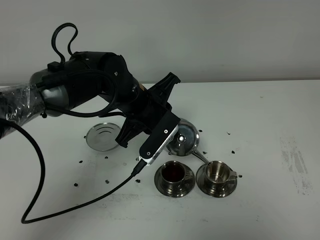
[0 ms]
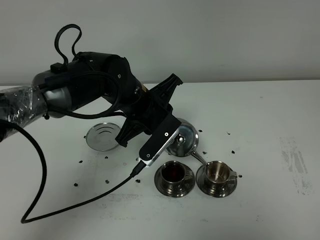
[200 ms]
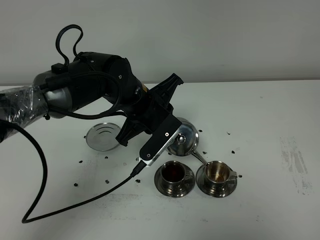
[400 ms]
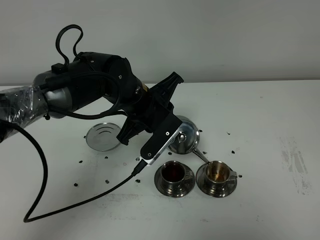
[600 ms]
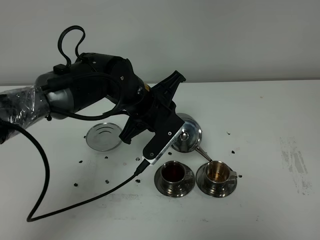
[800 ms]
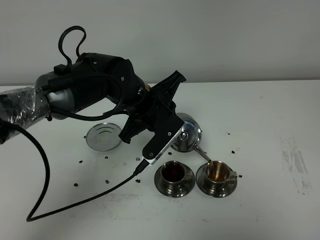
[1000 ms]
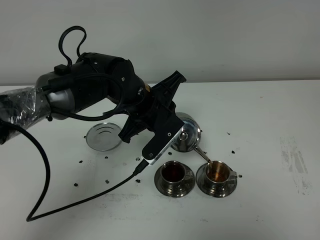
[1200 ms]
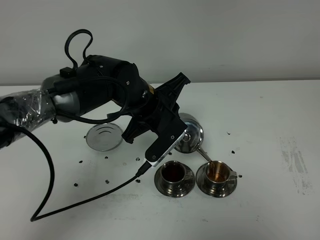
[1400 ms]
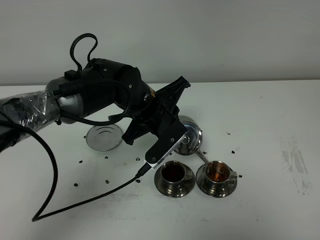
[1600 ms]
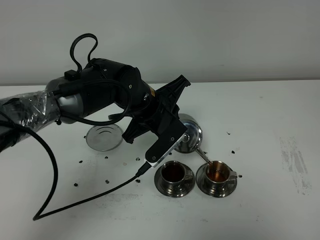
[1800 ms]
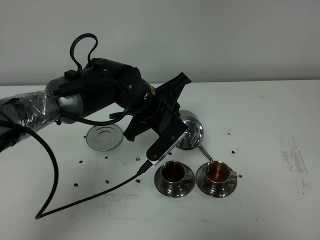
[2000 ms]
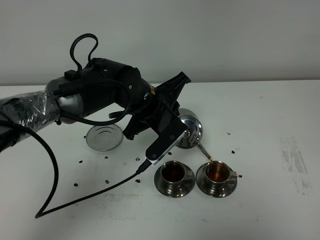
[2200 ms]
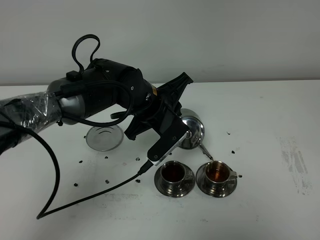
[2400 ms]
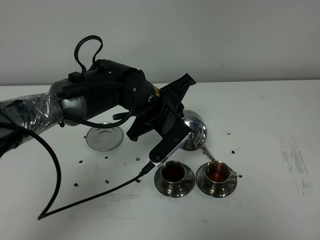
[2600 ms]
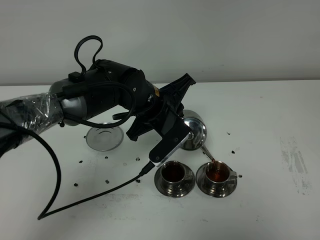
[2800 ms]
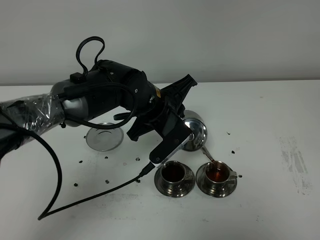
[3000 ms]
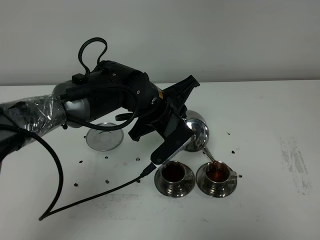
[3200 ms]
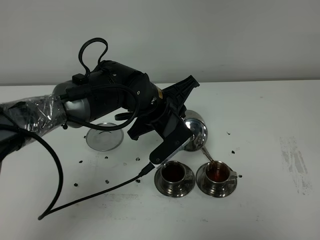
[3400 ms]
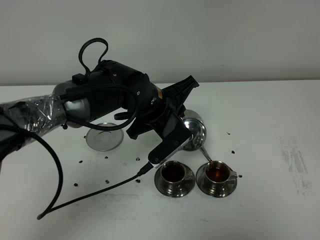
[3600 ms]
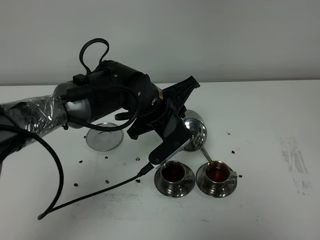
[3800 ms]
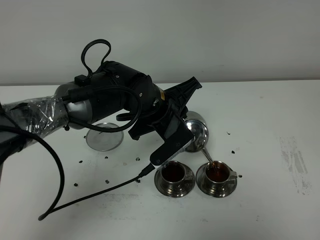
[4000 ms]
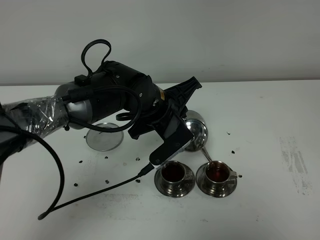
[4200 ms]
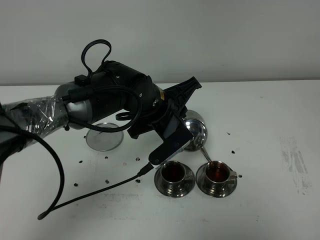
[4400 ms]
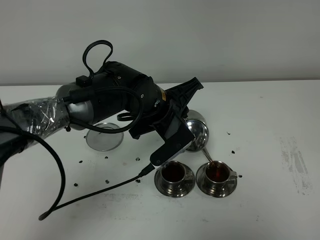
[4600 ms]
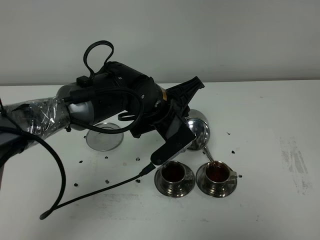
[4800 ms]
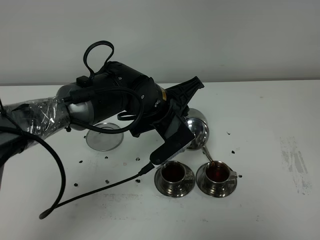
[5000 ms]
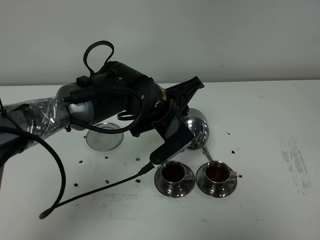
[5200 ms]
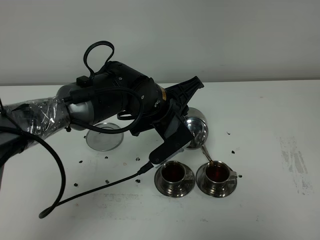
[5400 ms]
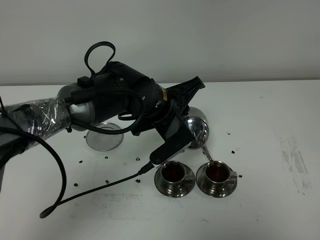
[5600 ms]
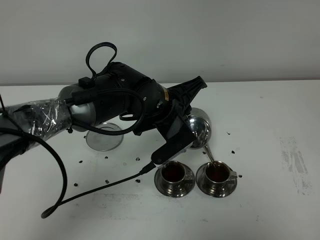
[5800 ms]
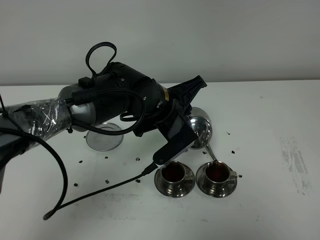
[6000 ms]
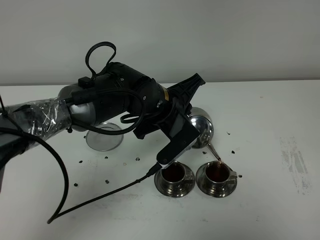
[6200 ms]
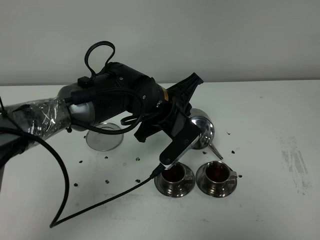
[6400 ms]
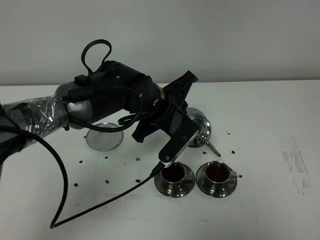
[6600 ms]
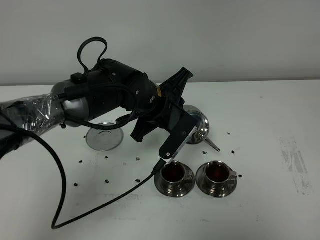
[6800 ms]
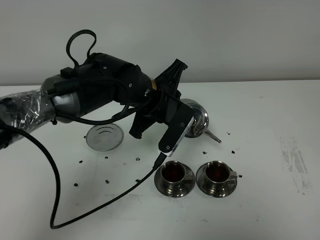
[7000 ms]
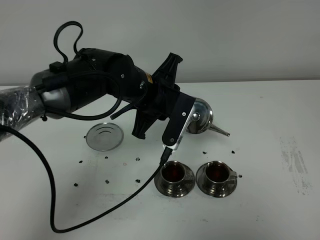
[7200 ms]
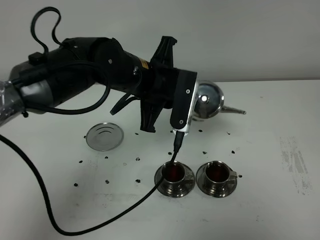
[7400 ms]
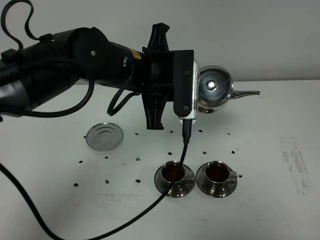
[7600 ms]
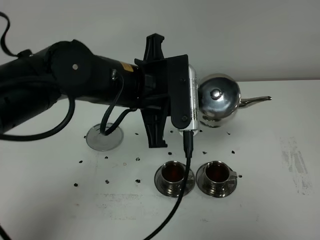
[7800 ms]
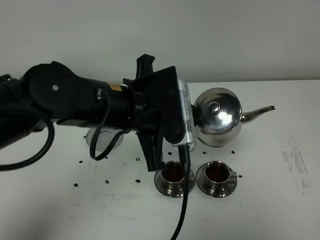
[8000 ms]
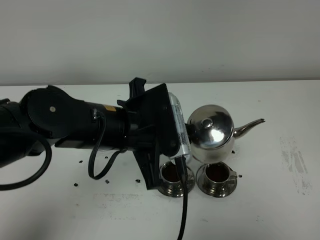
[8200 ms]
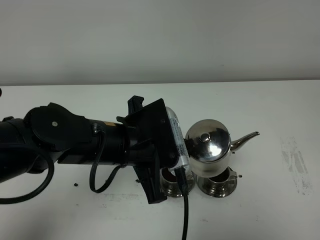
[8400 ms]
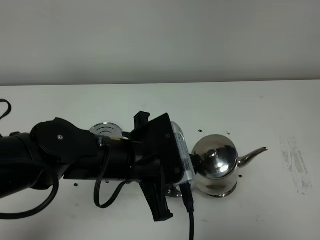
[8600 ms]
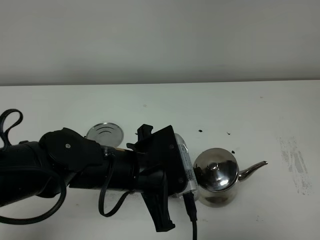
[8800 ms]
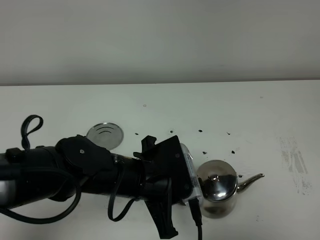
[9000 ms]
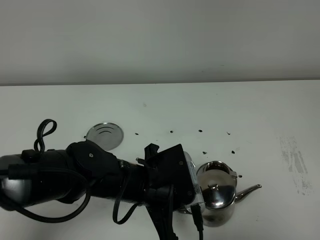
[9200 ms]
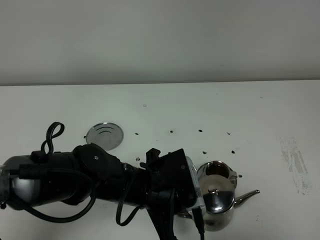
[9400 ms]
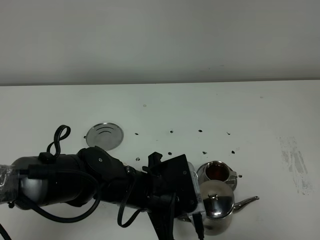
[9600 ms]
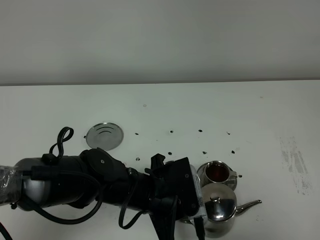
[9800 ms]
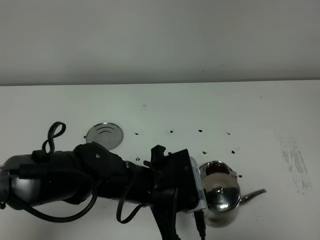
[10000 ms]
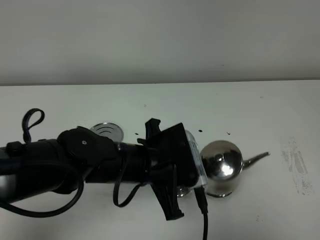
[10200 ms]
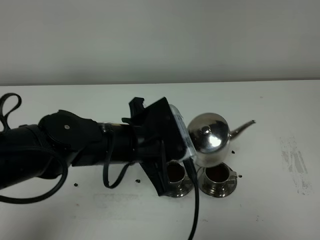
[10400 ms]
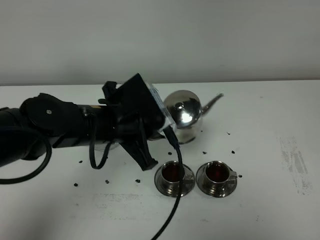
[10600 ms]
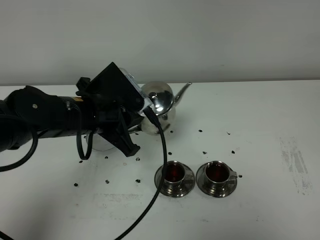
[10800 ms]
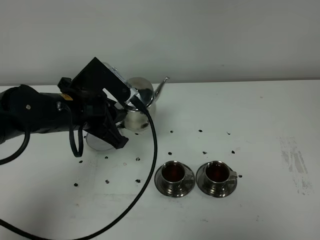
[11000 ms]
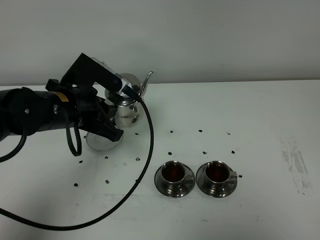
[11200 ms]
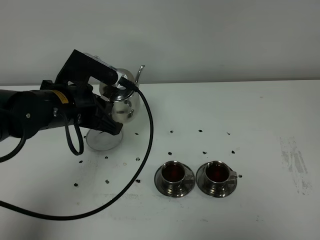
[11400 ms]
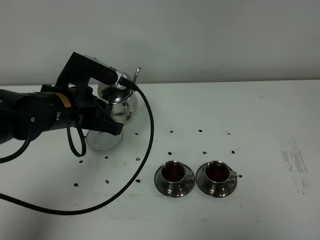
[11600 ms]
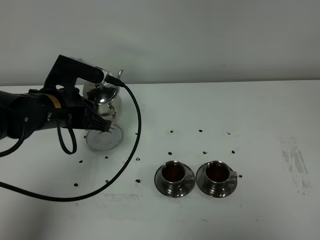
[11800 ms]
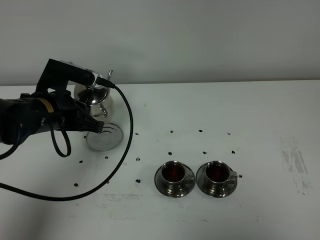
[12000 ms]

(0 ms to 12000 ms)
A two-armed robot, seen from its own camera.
Task of the whole recording: grasp the stainless steel teapot and pour the tea into the two stainless steel teacups one by one, put the stainless steel teapot back in its original place.
Step, 0 ms - 6600 ms: Pour tea into the teacup with the left gripper.
0 ms - 4400 ms: The grippers move only a little.
4400 ms - 6000 ms: The two grippers keep their place.
6000 ms - 7600 ms: The left gripper shifts about 10 cm upward.
7600 ms - 9000 ms: The left gripper moves downward and backward, some 15 cm.
9000 ms - 10400 ms: The left gripper shifts by roughly 5 cm.
10400 ms - 12000 ms: The left gripper heads to the left and forward, covering about 15 cm.

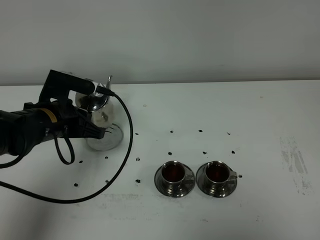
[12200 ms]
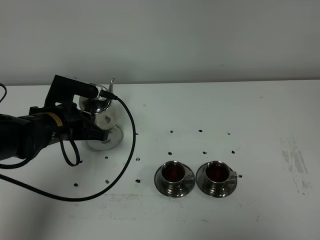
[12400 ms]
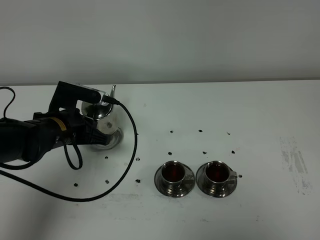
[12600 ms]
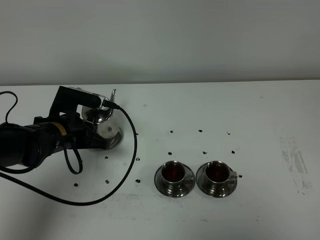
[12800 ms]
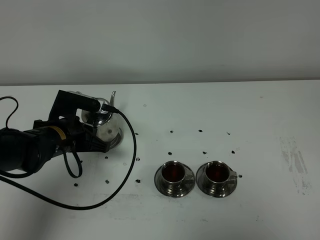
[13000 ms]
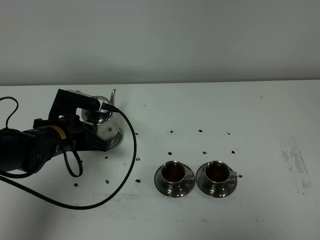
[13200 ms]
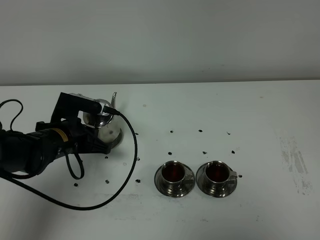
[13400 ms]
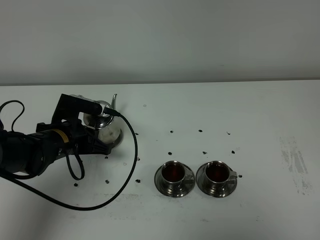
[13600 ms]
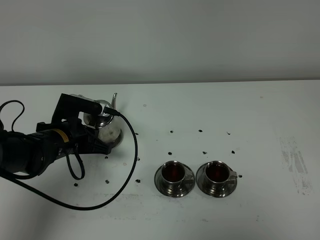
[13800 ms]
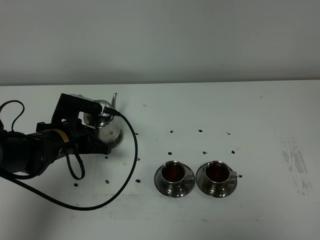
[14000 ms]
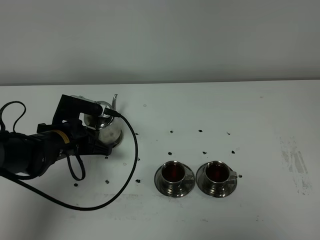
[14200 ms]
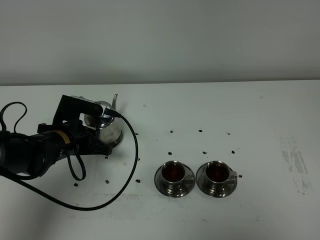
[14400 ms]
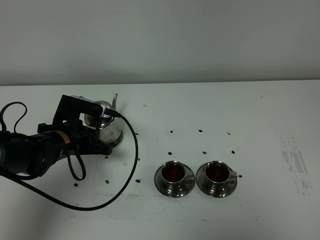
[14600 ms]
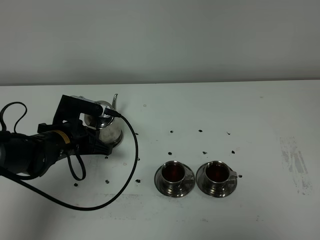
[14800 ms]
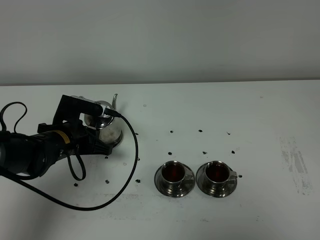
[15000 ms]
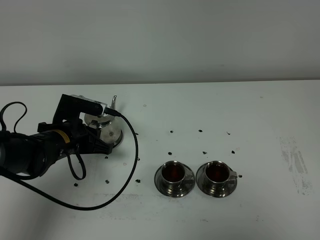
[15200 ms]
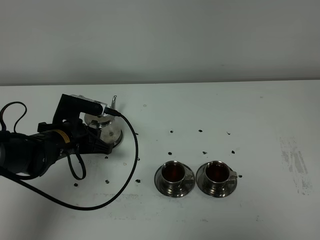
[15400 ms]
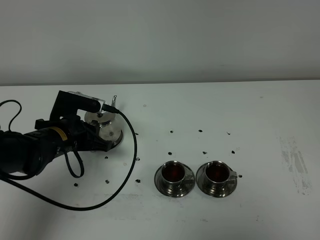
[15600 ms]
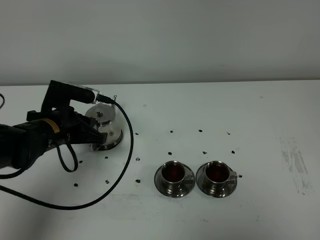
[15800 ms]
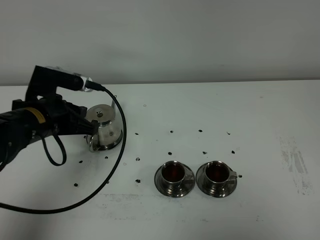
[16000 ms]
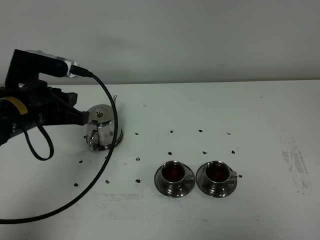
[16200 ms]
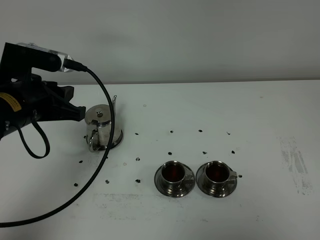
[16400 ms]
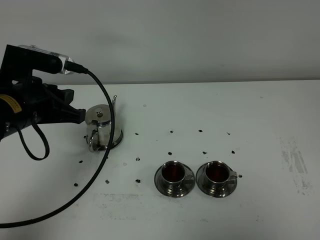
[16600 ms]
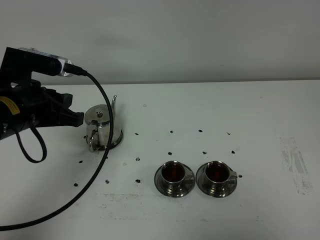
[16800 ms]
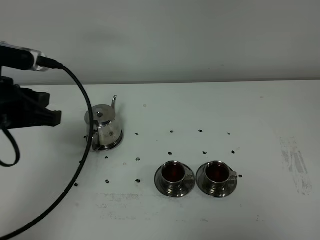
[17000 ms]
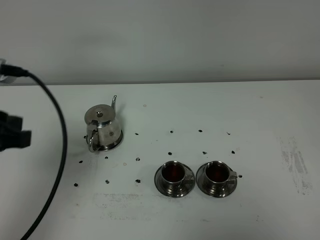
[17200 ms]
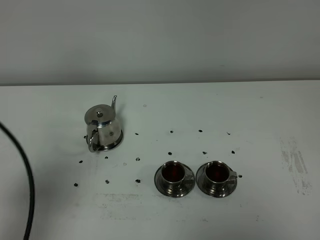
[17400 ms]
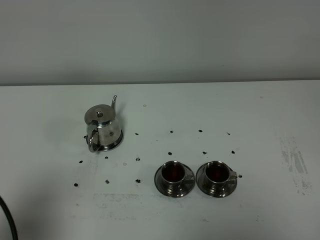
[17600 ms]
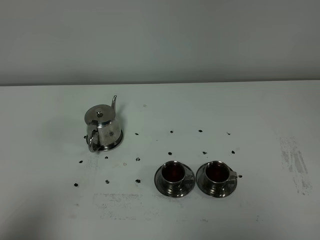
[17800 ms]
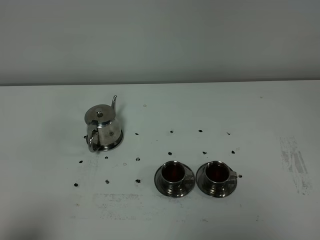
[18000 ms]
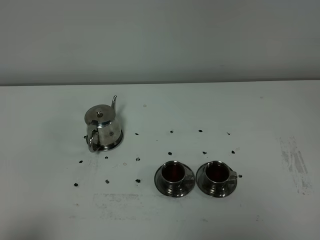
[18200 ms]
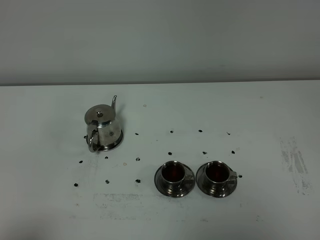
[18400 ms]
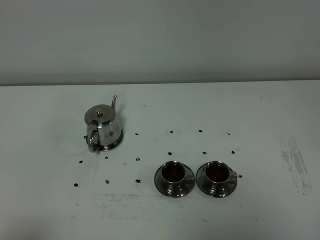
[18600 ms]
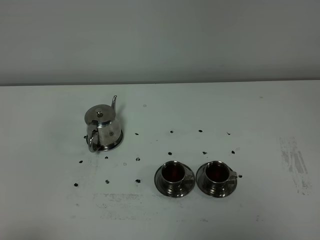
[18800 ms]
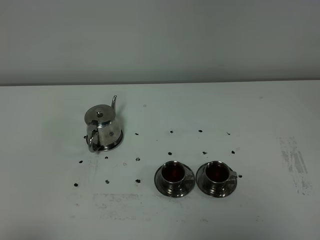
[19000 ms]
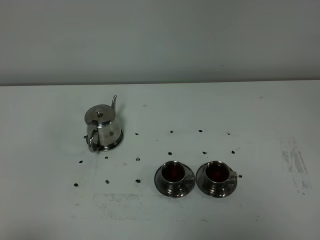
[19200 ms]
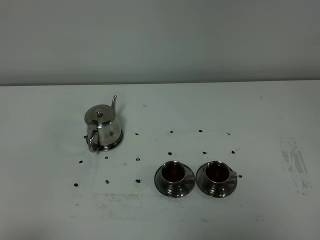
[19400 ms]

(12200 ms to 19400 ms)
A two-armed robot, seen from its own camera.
Task of the whole recording: grasp the stainless steel teapot and pour the tea into the two stainless steel teacups one by one, put the stainless steel teapot back in its original place.
12200 ms - 13600 ms: The left gripper goes approximately 5 cm downward.
13600 ms - 15000 ms: Neither gripper changes place.
15000 ms - 16600 ms: The left gripper moves upward, approximately 15 cm.
16600 ms - 18000 ms: The left gripper goes roughly 25 cm backward.

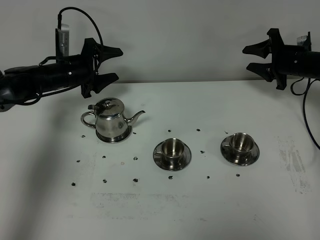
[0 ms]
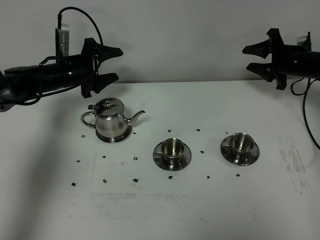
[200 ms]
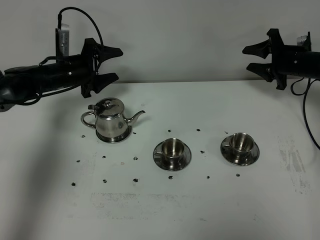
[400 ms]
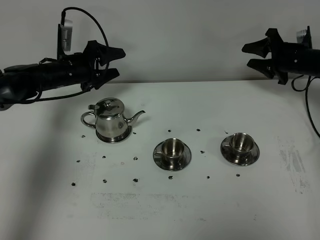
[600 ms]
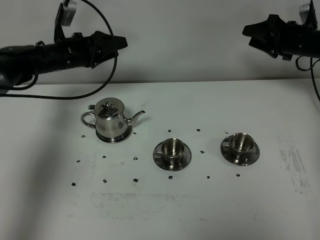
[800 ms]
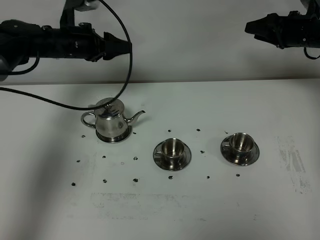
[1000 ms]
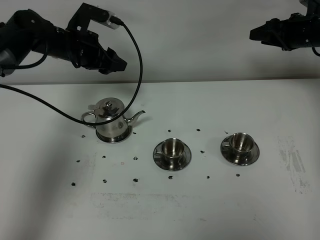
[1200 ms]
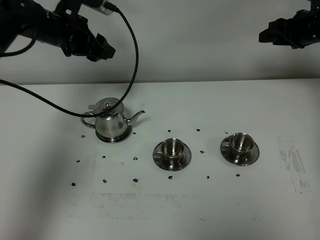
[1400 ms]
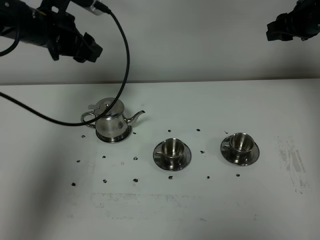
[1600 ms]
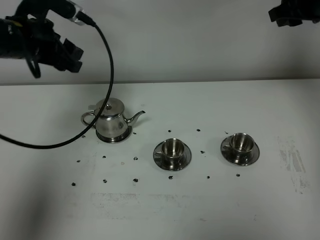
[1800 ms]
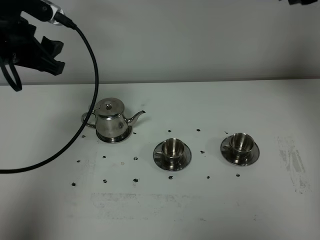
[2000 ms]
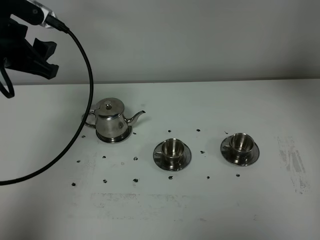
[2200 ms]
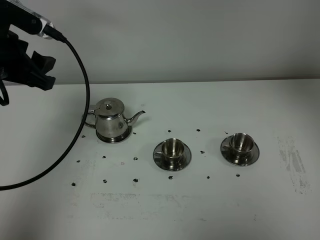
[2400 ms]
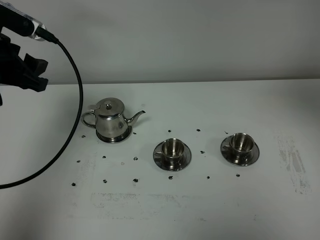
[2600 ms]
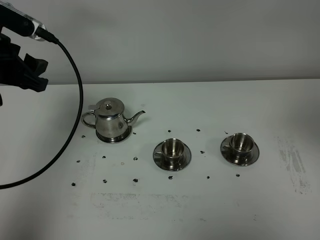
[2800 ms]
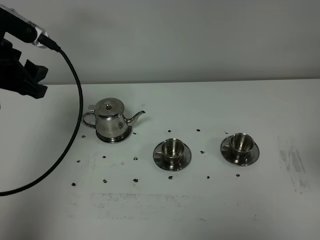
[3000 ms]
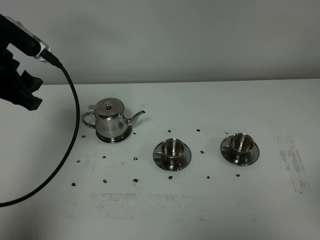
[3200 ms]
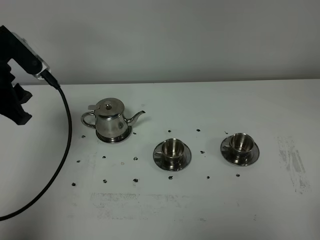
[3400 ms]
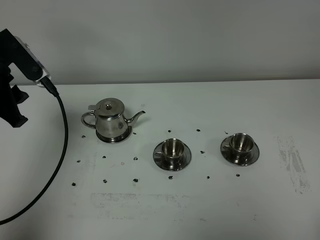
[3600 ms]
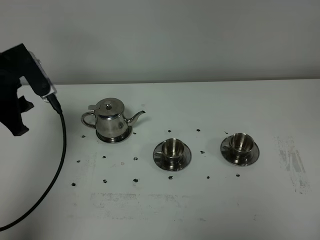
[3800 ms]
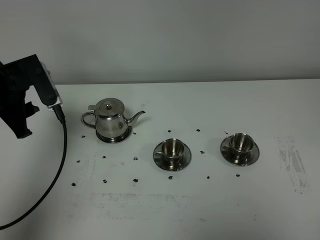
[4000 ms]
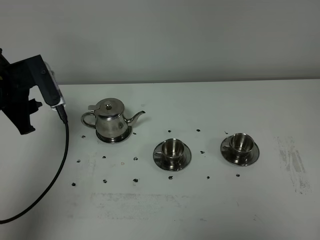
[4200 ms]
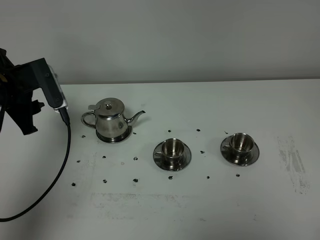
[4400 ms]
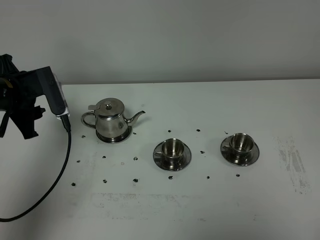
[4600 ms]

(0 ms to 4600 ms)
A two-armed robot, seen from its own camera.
Task of the whole recording: grasp the stainless steel teapot and pour the tea into the two stainless steel teacups one by one, put the stainless steel teapot back in its original place.
0 ms - 1600 ms: The right gripper heads upward, covering about 15 cm. Meanwhile the left gripper moves upward and backward, some 15 cm.
1600 ms - 3000 ms: The right gripper moves backward, approximately 35 cm. Meanwhile the left gripper moves backward and to the left, approximately 15 cm.
3000 ms - 4600 ms: The left gripper heads downward, covering some 10 cm.
